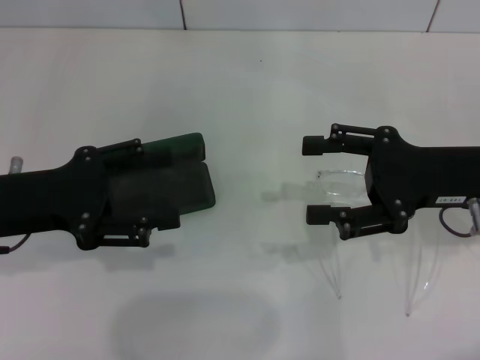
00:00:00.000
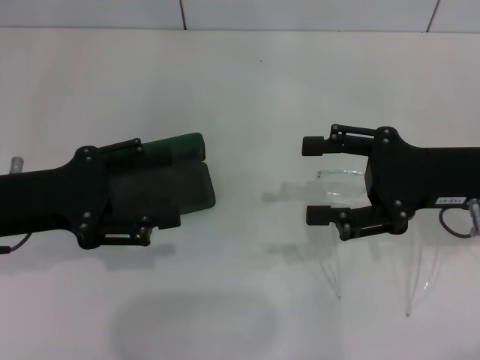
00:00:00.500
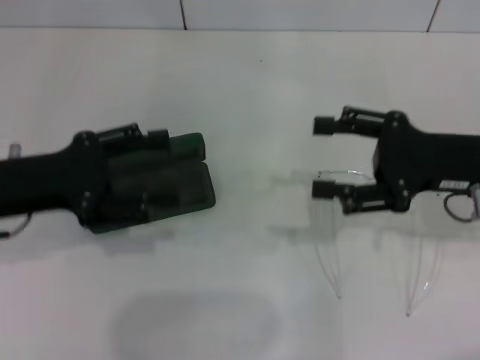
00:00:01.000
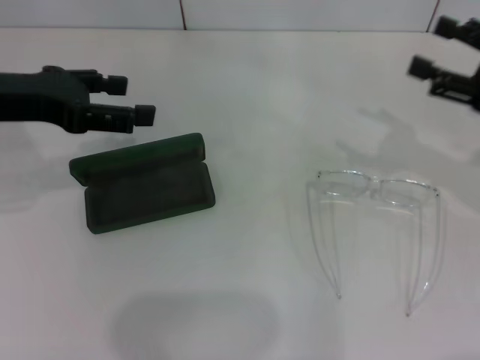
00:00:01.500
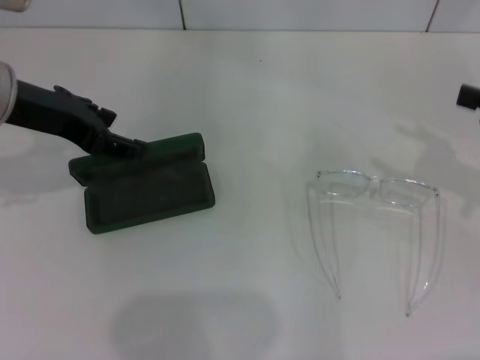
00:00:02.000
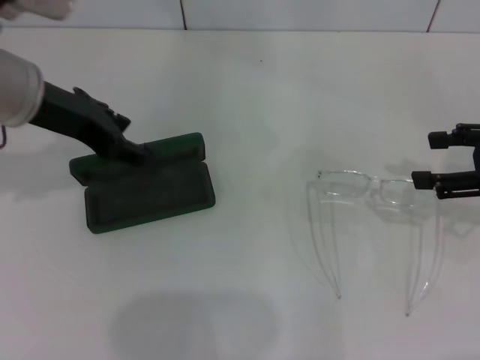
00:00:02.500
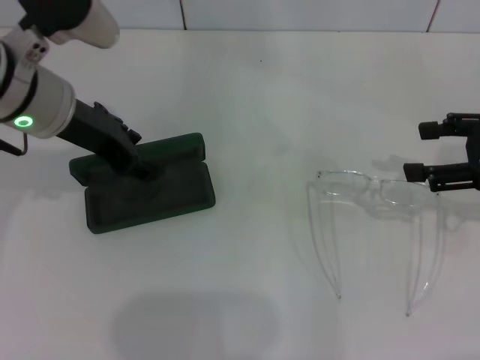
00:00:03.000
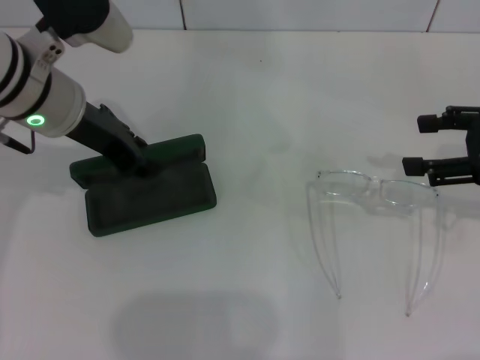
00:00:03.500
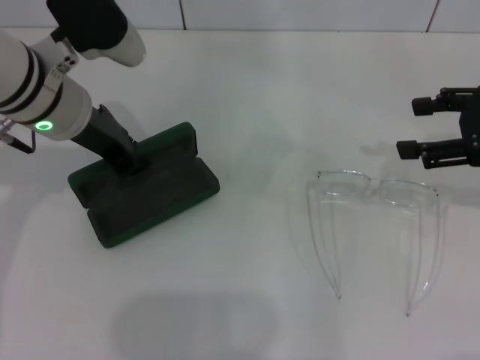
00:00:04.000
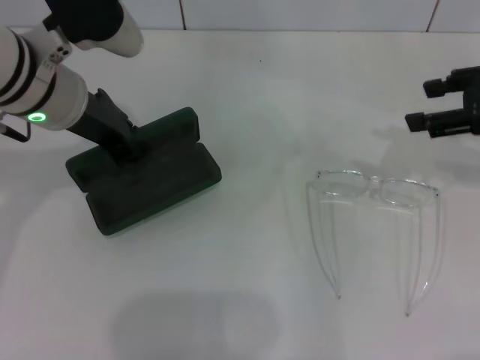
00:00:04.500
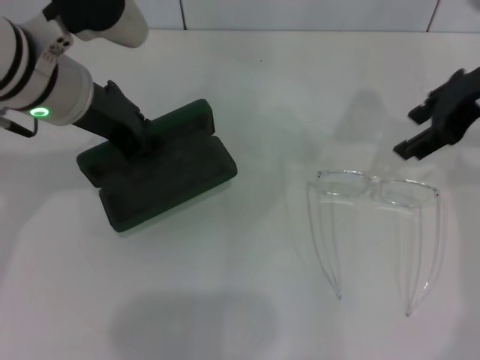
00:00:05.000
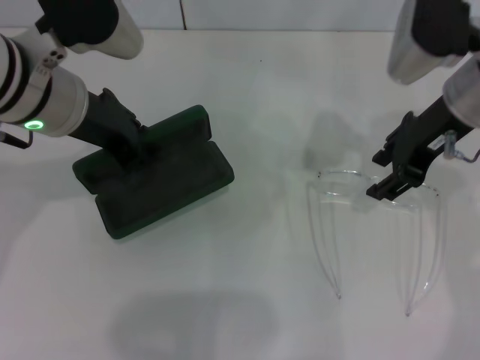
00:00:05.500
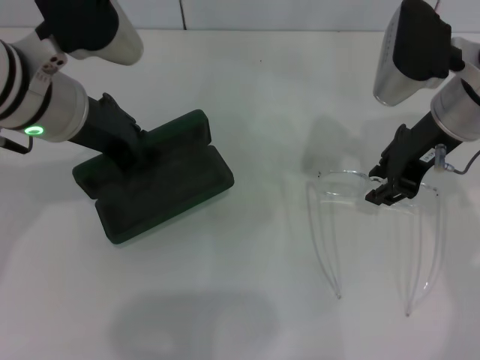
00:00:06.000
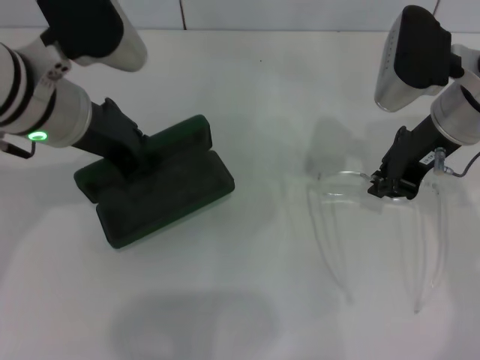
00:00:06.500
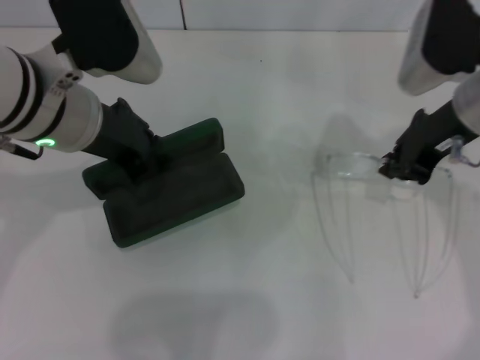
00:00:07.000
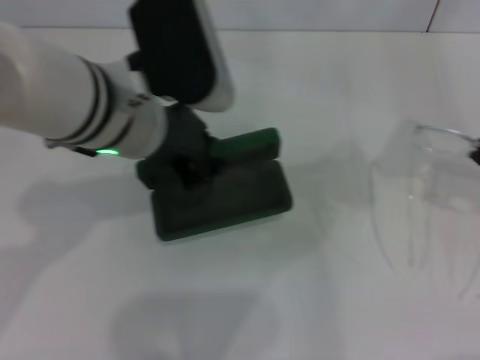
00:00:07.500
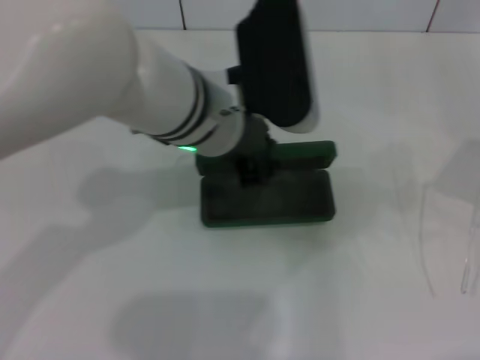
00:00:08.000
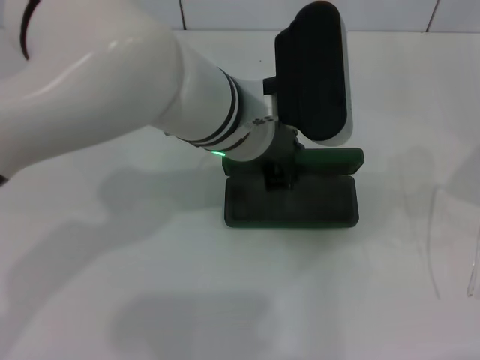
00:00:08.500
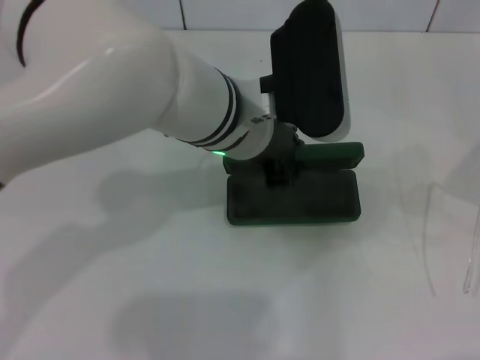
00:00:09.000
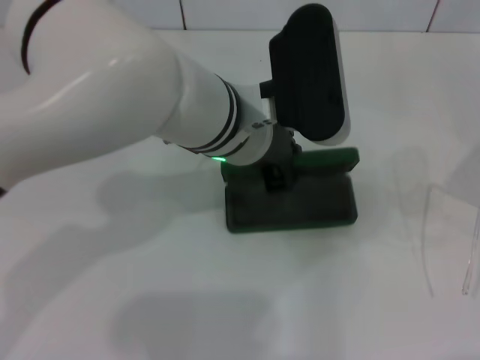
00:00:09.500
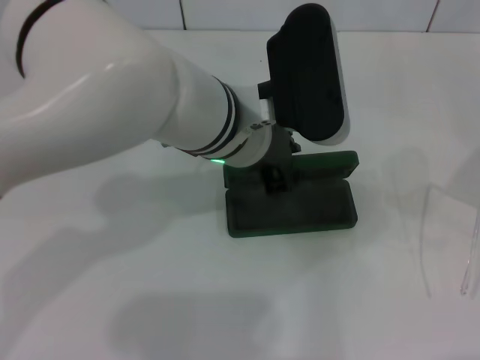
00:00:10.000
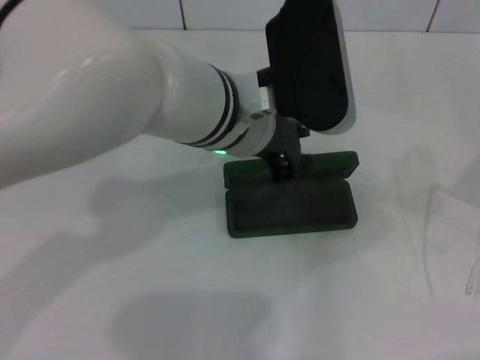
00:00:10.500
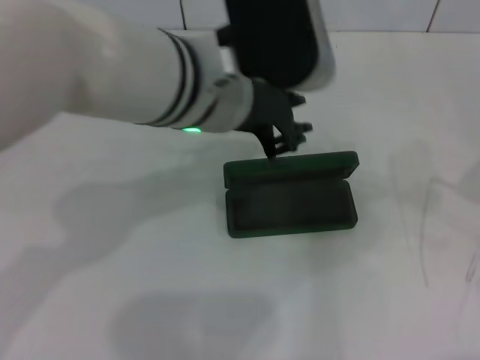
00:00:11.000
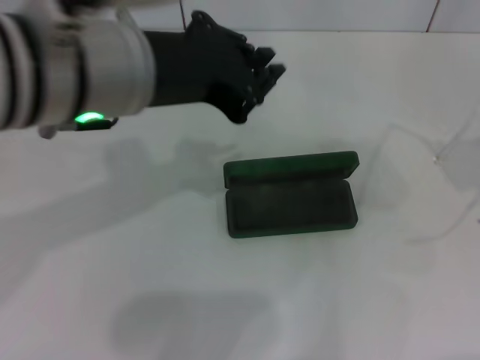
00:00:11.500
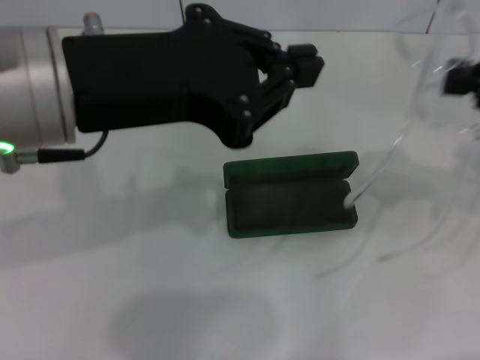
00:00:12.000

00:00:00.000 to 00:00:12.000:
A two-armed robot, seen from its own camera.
Step, 00:00:00.000 to 00:00:03.500: Grab the glasses case with your left hand.
Step, 00:00:04.500 to 00:00:06.000: Grab the eyeglass frame with your right hand.
Step, 00:00:07.000 to 00:00:09.500: Place the glasses case in the center of the table with your left hand.
00:00:00.000 to 00:00:02.000: The right gripper heads to the right, covering roughly 10 cm. Meanwhile the left gripper heads upward and forward, covering approximately 10 cm.
00:00:02.000 to 00:00:04.000: The right gripper ends up some 5 cm from where it was, while the left gripper heads to the right, covering some 5 cm, and closes.
00:00:04.000 to 00:00:06.000: The right gripper is displaced to the left and forward by about 15 cm, and closes.
00:00:06.000 to 00:00:08.000: The right gripper shifts about 20 cm to the right and backward, and closes up. The left gripper heads to the right, covering about 10 cm.
00:00:10.000 to 00:00:12.000: The left gripper goes roughly 20 cm to the left, upward and backward.

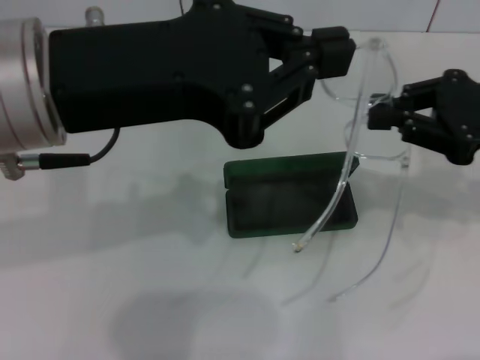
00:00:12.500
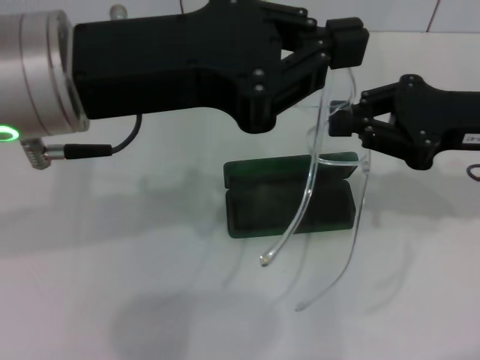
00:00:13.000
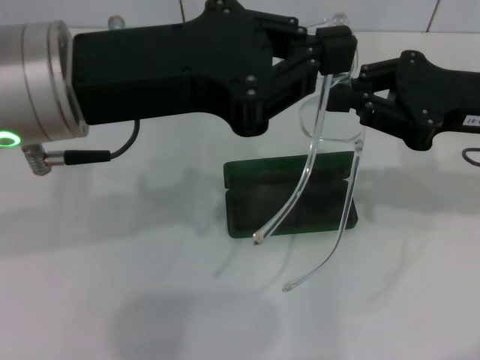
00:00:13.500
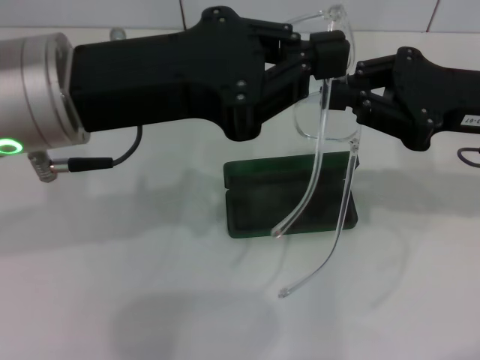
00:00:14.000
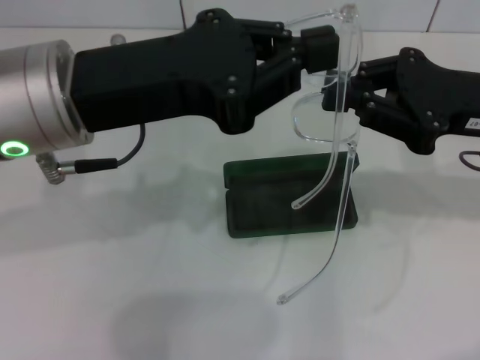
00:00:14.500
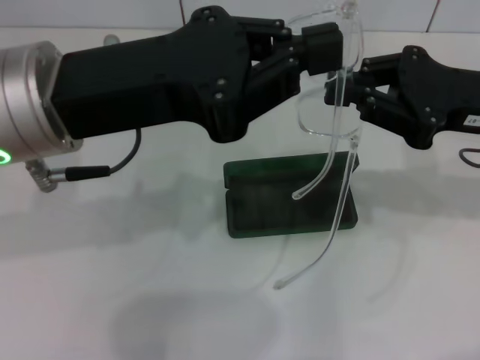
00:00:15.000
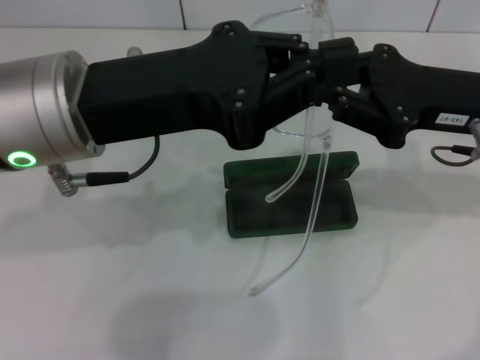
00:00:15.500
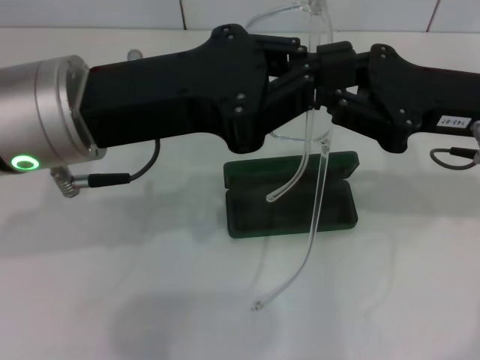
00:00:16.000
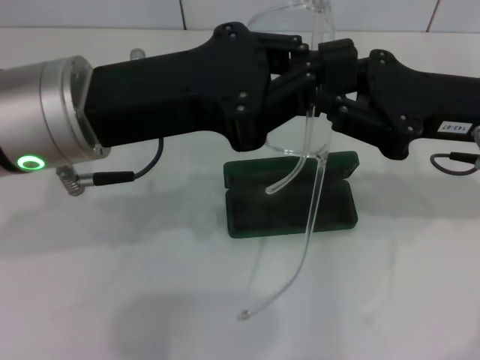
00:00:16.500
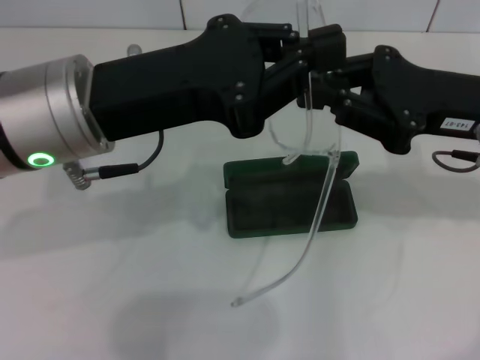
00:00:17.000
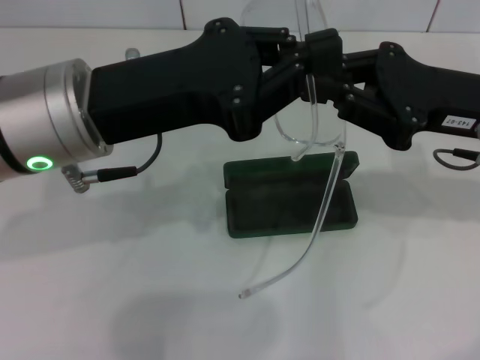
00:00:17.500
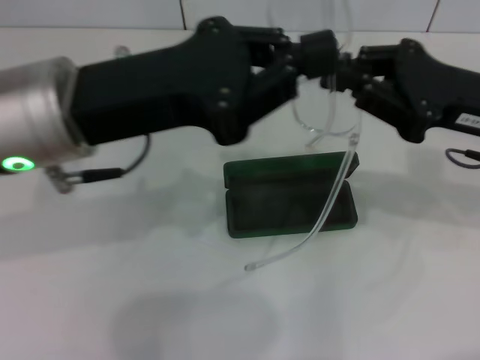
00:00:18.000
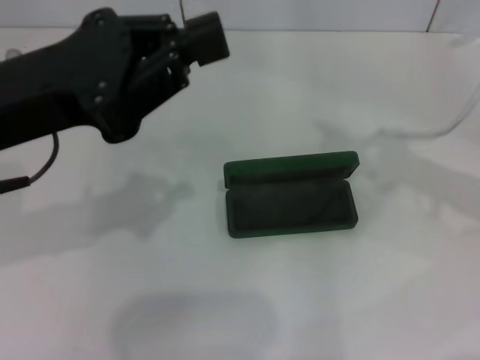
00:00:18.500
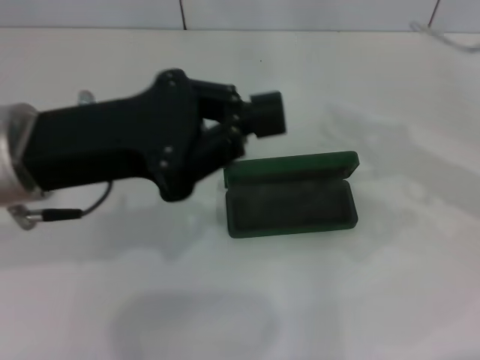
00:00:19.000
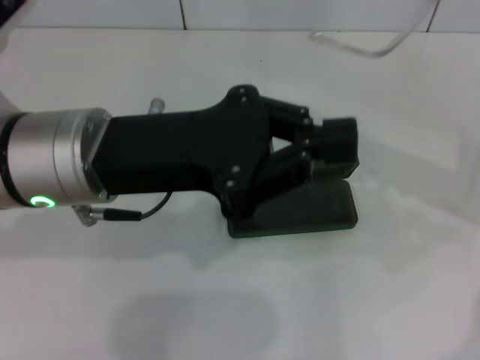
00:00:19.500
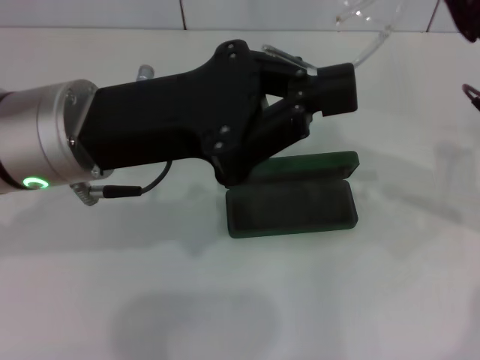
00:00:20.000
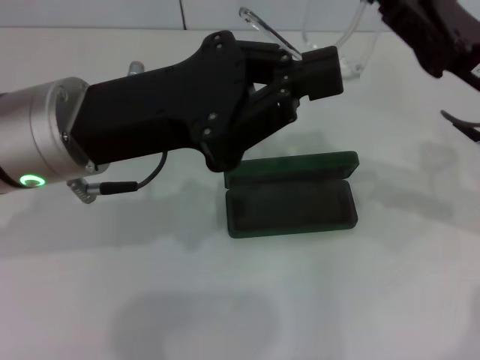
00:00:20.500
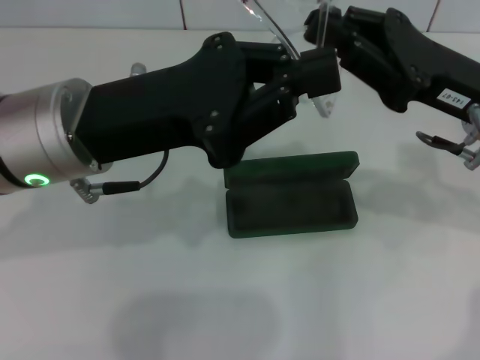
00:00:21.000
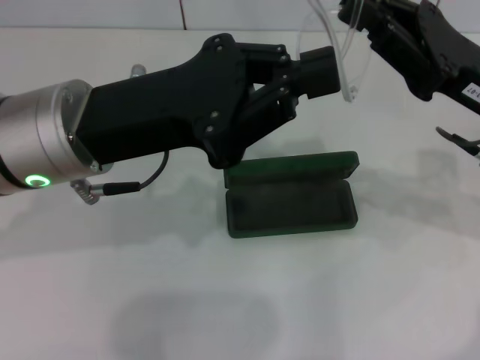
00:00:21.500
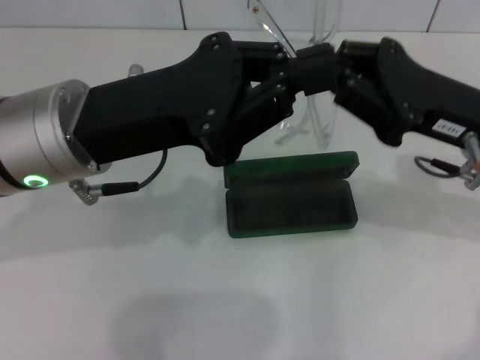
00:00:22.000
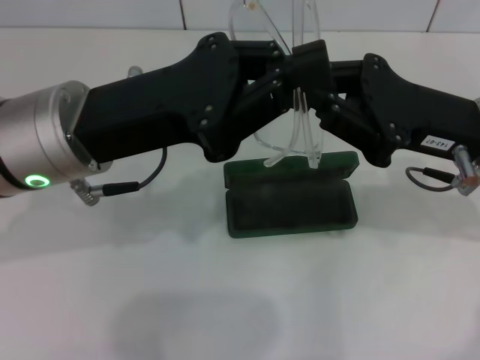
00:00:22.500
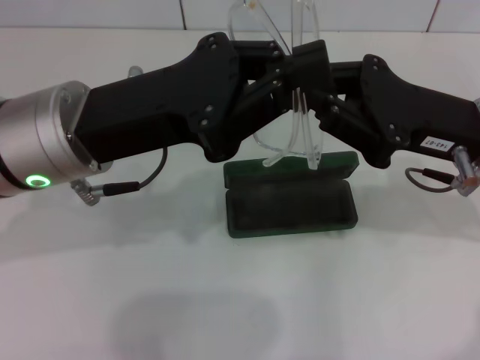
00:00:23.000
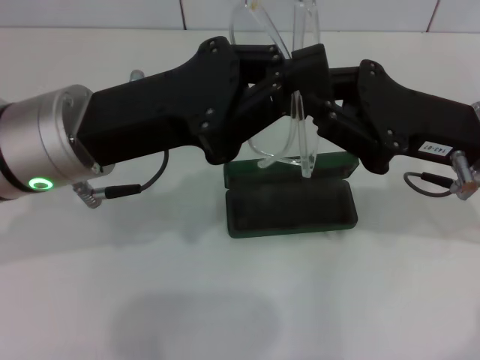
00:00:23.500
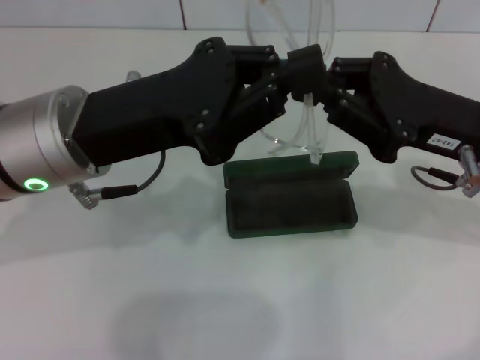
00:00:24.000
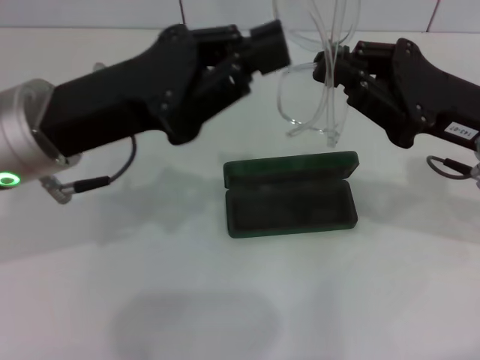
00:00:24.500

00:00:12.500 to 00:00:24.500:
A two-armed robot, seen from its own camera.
00:00:12.500 to 00:00:14.500: The left gripper moves roughly 5 cm.
00:00:14.500 to 00:00:16.500: There are only small adjustments of the grippers.
00:00:16.500 to 00:00:18.500: The right gripper travels to the right by roughly 10 cm. Meanwhile the left gripper goes some 5 cm to the left.
00:00:18.500 to 00:00:20.500: The left gripper moves to the right, some 5 cm; the right gripper goes some 10 cm to the left.
00:00:20.500 to 00:00:22.500: The grippers move only a little.

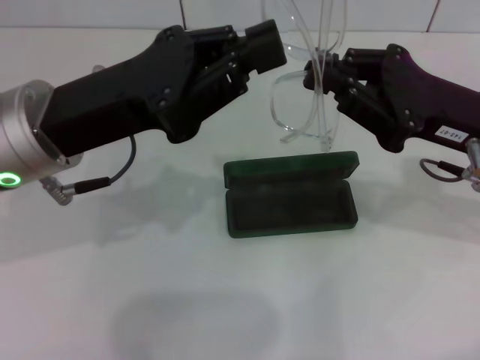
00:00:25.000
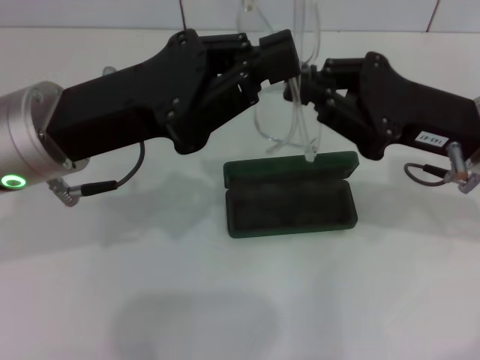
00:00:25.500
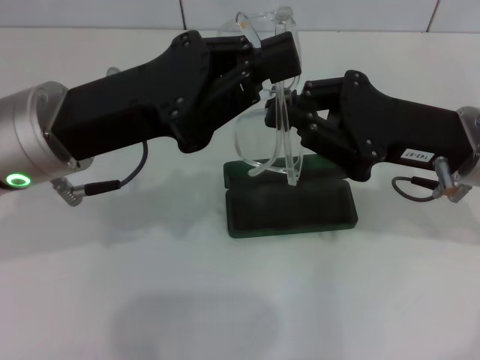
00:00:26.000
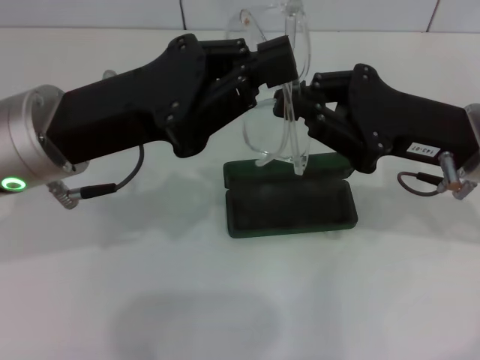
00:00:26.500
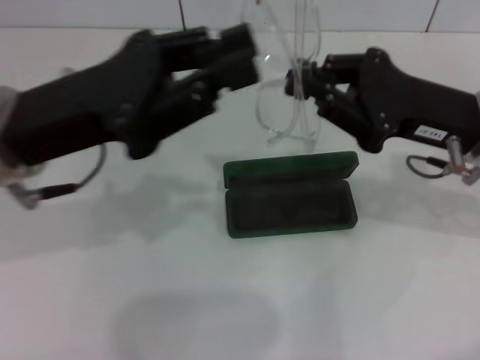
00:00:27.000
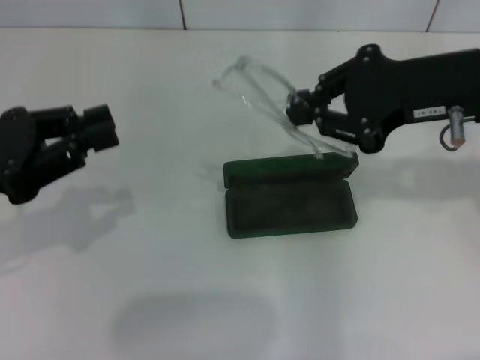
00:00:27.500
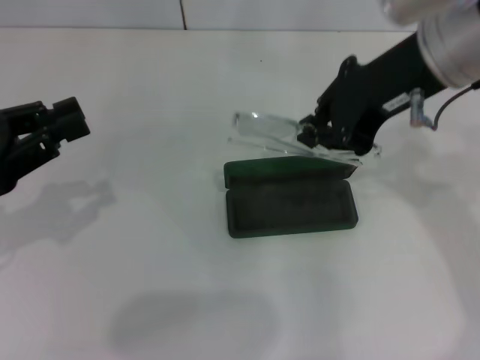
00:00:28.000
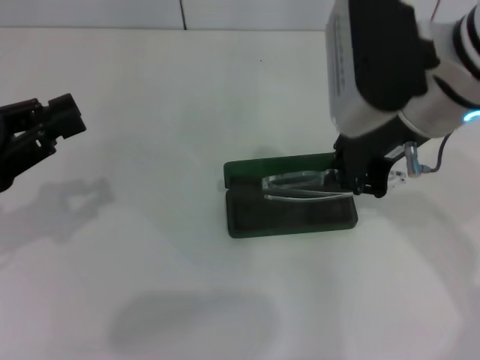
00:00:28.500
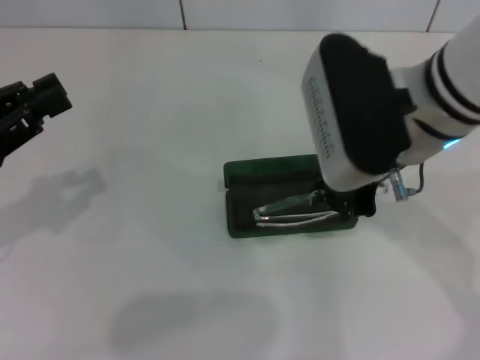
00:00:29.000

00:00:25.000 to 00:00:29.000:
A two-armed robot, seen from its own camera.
00:00:25.000 to 00:00:27.000: There are only small adjustments of the grippers.
00:00:27.000 to 00:00:29.000: The left gripper moves to the left, roughly 10 cm. Meanwhile the right gripper is displaced to the left and upward by about 10 cm.
